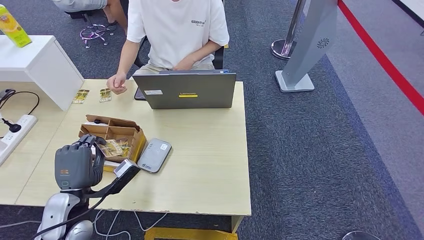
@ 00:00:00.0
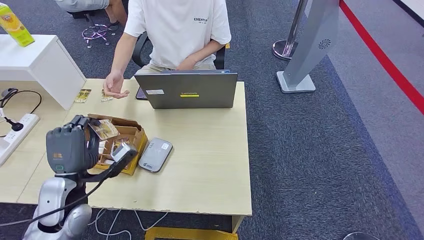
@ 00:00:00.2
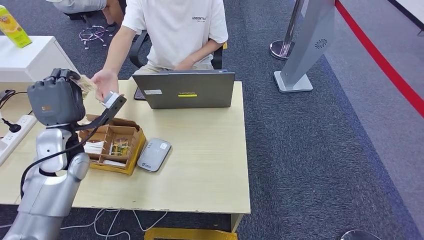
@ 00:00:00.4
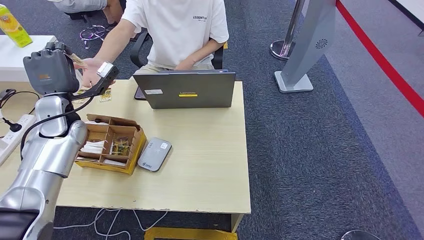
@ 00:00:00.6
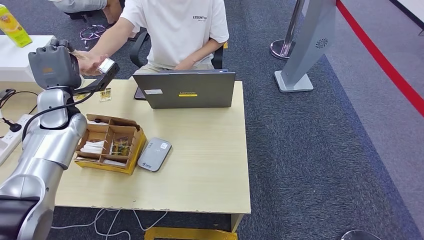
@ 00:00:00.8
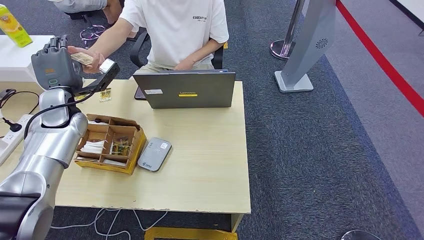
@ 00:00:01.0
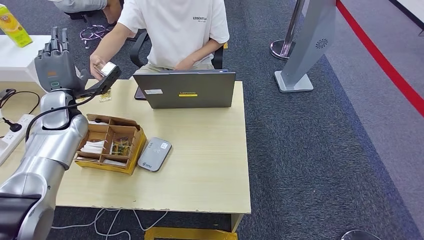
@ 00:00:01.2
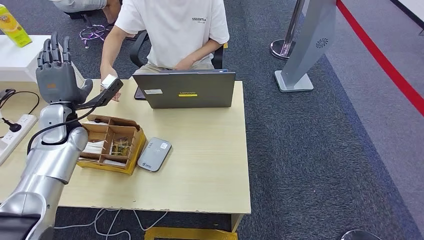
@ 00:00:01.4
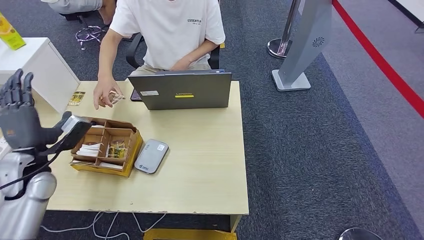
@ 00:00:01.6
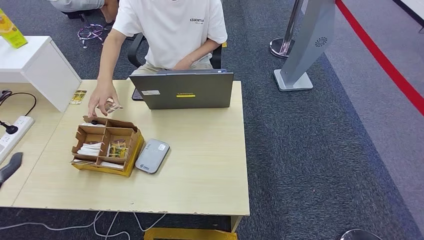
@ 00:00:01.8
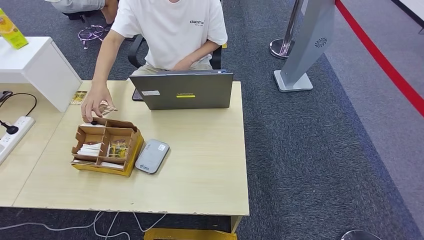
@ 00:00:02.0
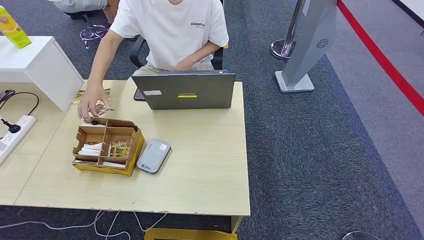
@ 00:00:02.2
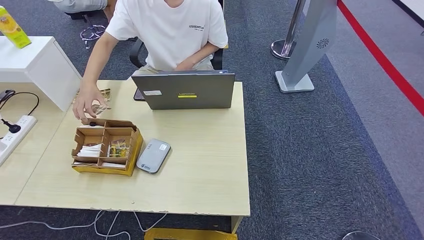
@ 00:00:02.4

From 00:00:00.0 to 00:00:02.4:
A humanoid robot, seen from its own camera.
Step, from 00:00:00.0 to 00:00:02.4: Hand the room key to the person.
From 00:00:00.0 to 00:00:01.2: The left hand shifts approximately 25 cm forward and upward.
From 00:00:01.2 to 00:00:02.4: The left hand heads backward and to the left, covering about 50 cm.
